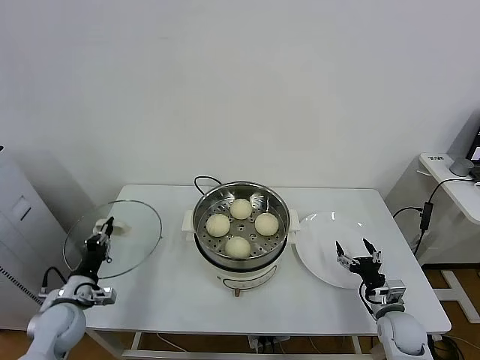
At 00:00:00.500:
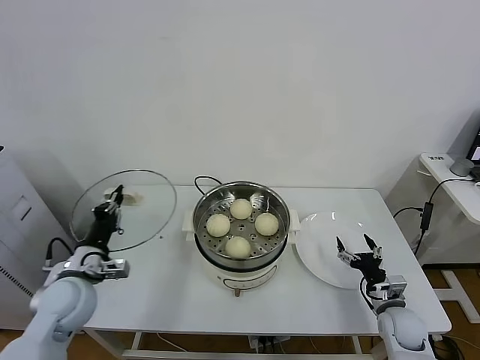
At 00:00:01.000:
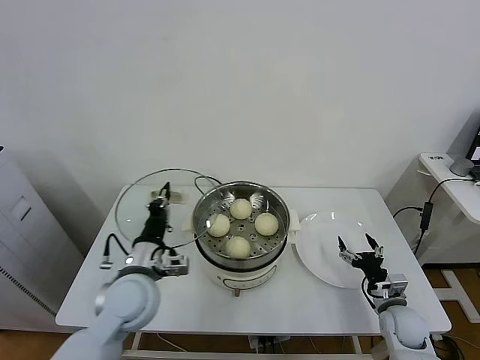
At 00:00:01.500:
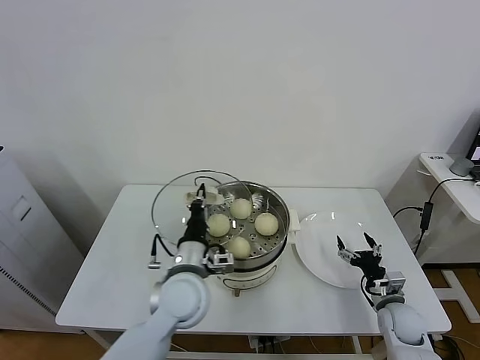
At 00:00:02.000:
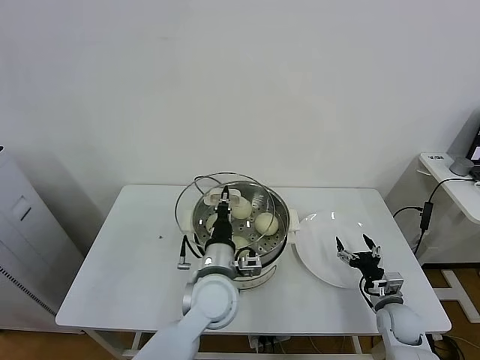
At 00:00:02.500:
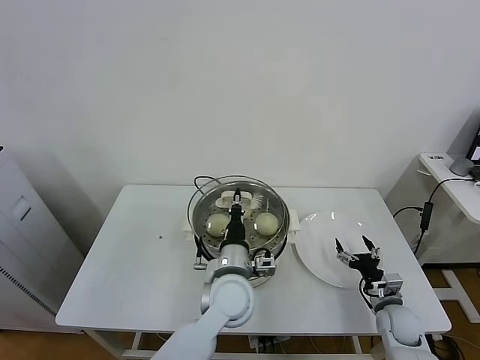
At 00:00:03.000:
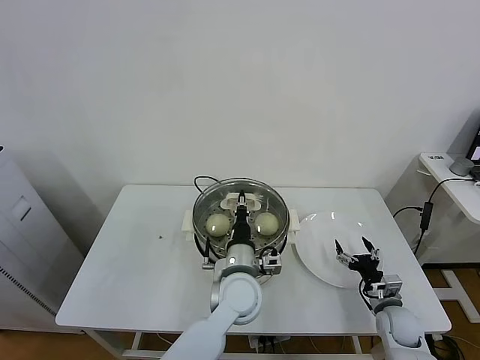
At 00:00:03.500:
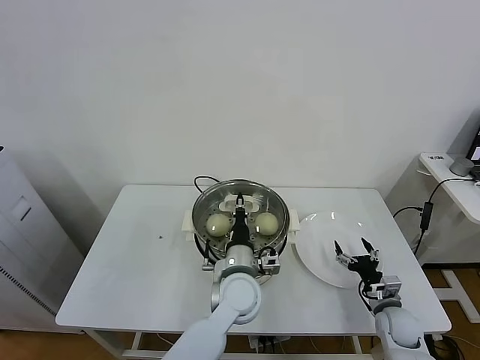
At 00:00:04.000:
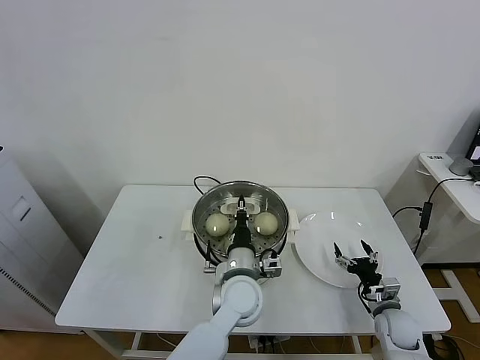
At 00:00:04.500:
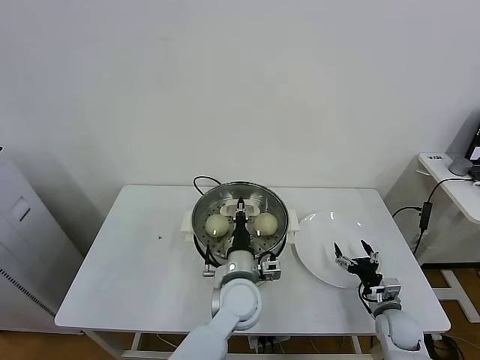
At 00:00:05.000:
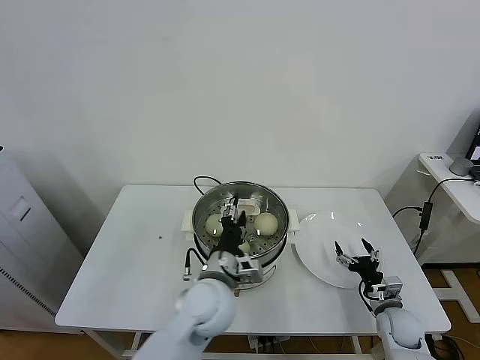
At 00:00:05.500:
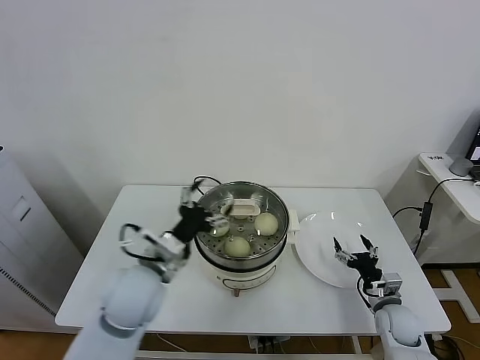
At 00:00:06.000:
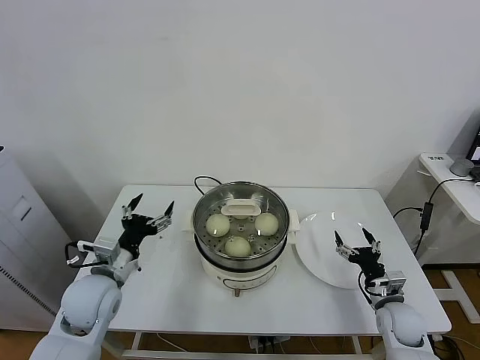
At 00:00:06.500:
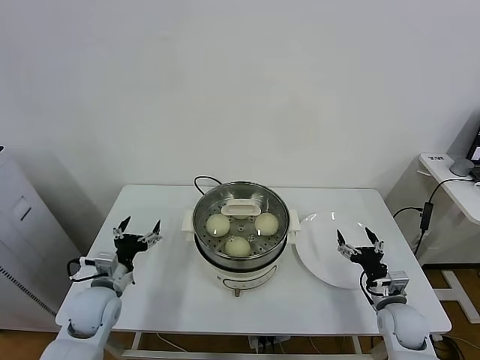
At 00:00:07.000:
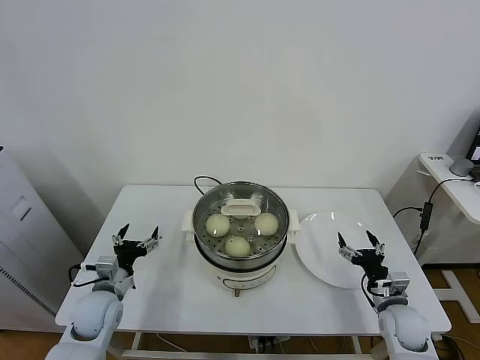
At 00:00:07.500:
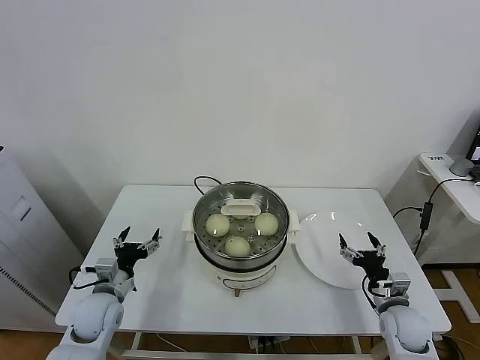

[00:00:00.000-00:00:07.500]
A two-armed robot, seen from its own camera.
Task of the whole recording: take steamed baozi put them in steamer.
Step, 00:00:00.500 to 00:00:05.000: Place the pot lid on the steamer with left gripper.
00:00:00.000 to 00:00:02.000: The left gripper goes roughly 35 cm to the right.
00:00:02.000 to 00:00:04.000: The left gripper moves to the right, approximately 5 cm.
00:00:04.000 to 00:00:05.500: The left gripper travels to the left and upward by some 20 cm, and opens up.
00:00:05.500 to 00:00:07.500: The left gripper moves downward and to the left, about 20 cm.
